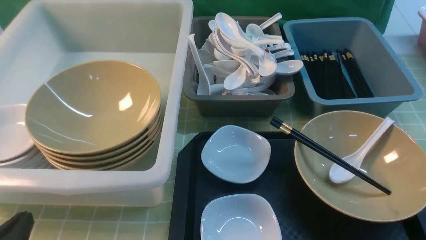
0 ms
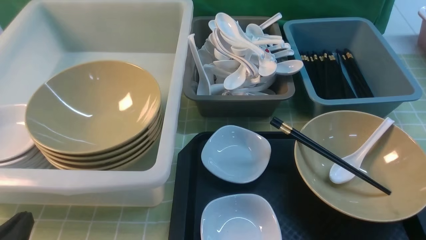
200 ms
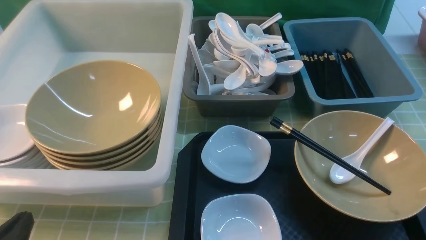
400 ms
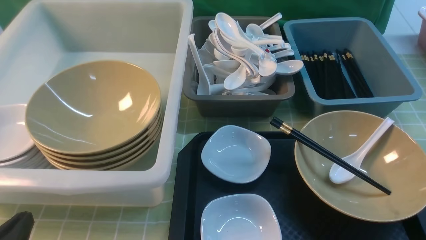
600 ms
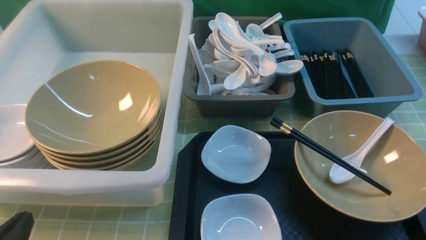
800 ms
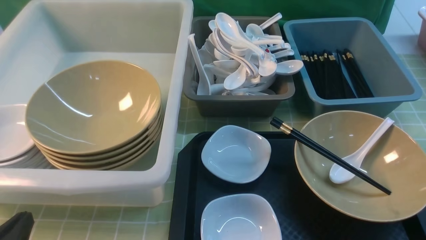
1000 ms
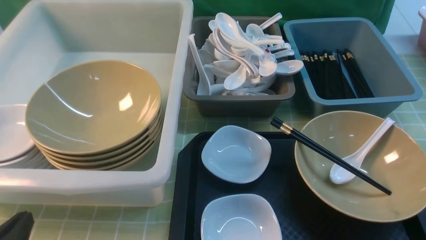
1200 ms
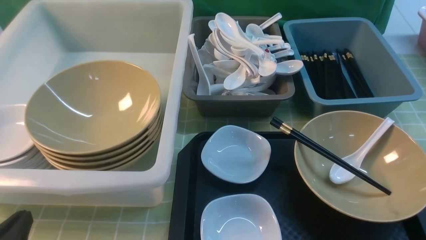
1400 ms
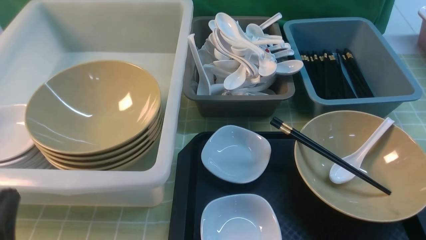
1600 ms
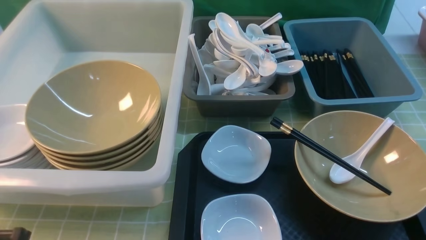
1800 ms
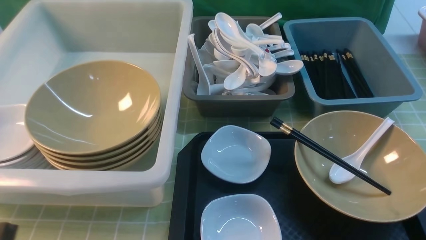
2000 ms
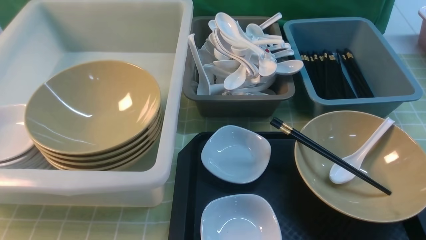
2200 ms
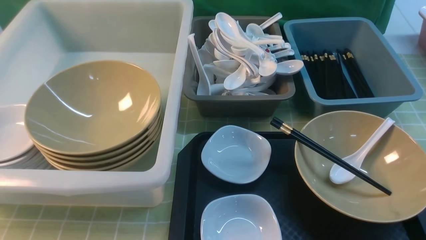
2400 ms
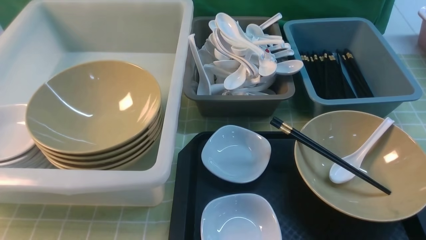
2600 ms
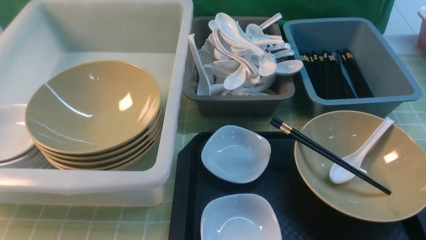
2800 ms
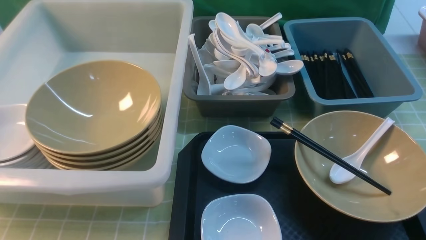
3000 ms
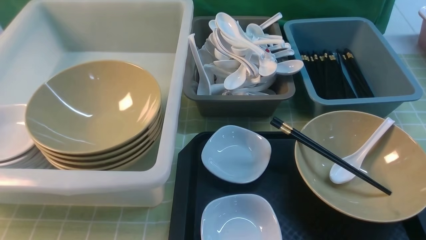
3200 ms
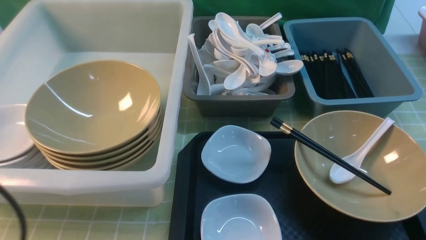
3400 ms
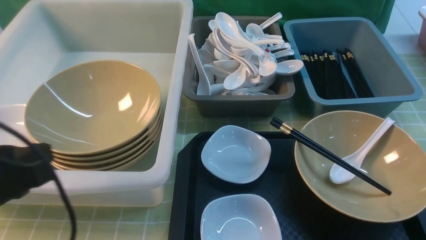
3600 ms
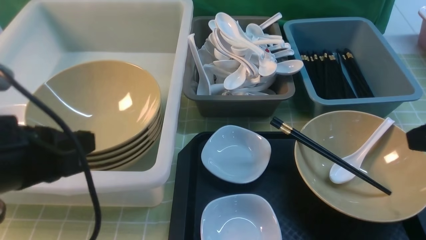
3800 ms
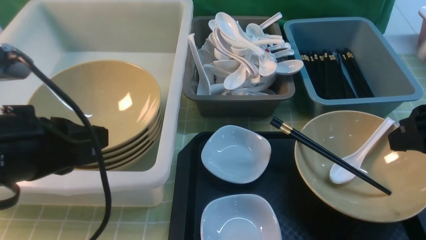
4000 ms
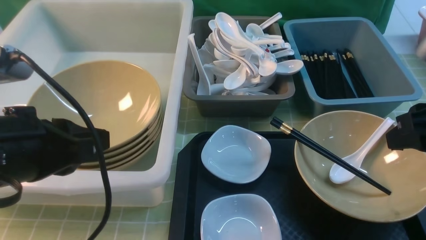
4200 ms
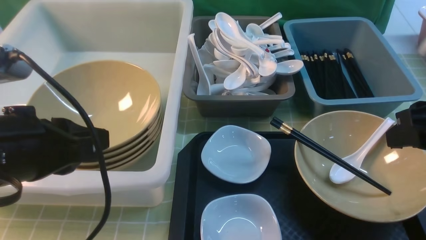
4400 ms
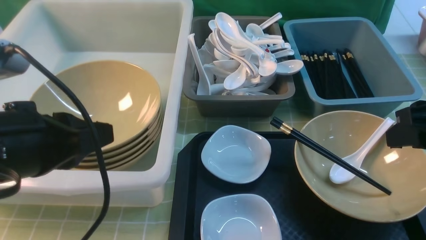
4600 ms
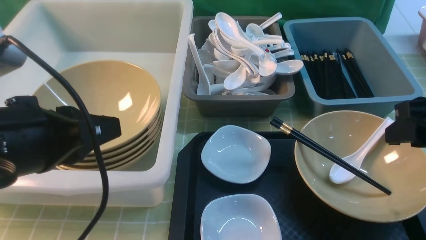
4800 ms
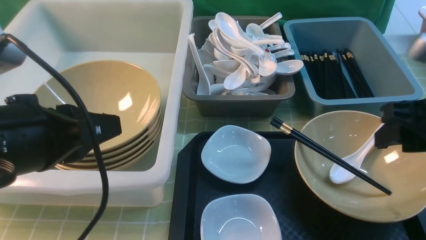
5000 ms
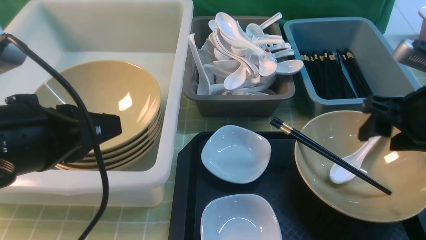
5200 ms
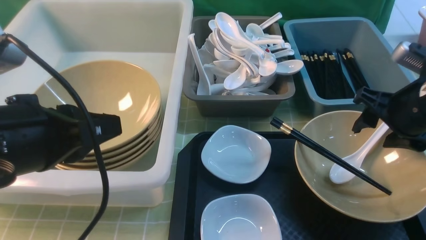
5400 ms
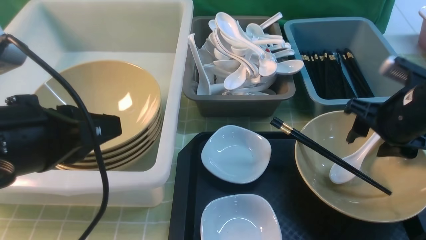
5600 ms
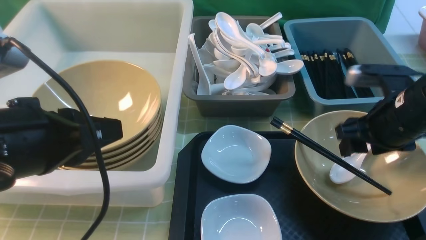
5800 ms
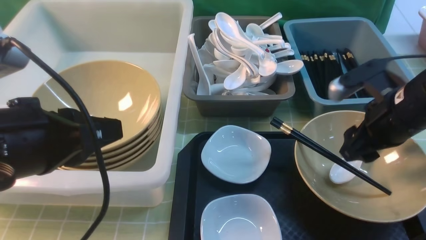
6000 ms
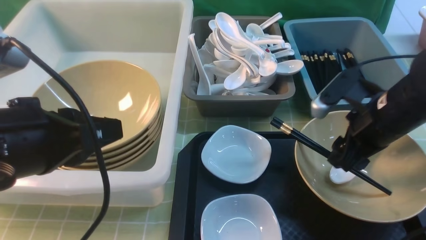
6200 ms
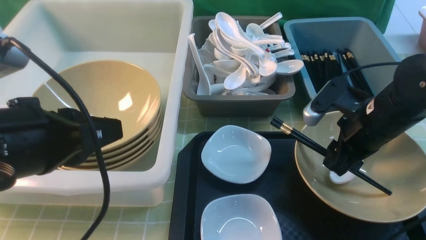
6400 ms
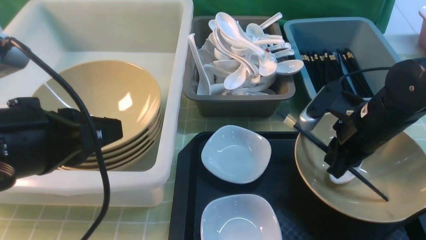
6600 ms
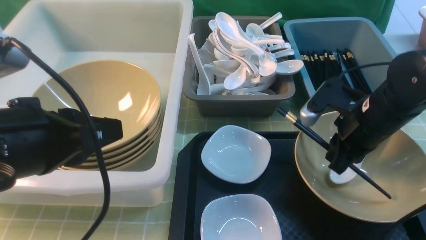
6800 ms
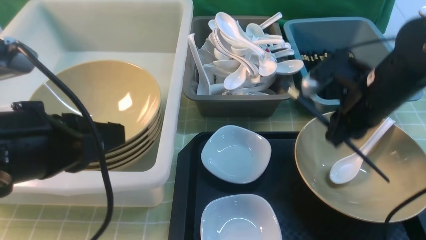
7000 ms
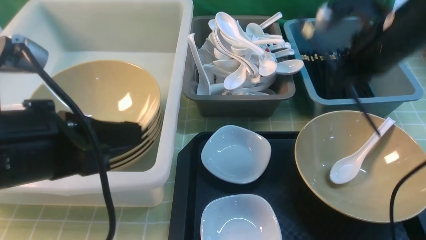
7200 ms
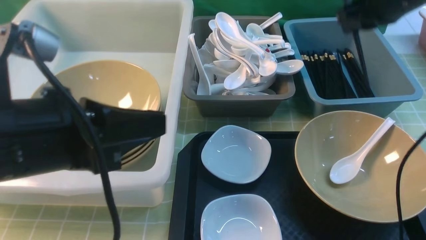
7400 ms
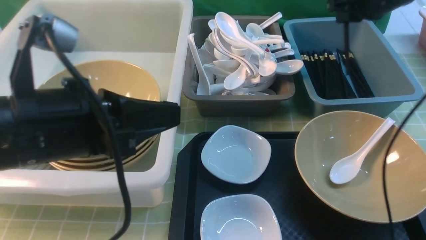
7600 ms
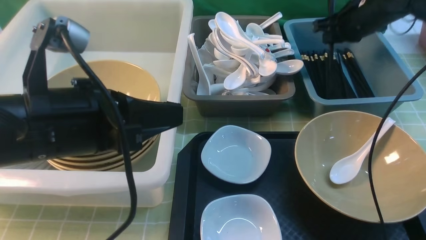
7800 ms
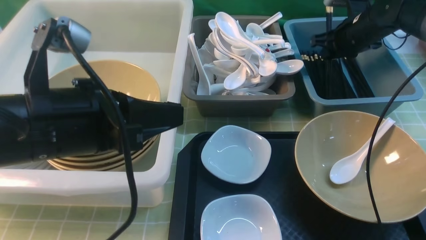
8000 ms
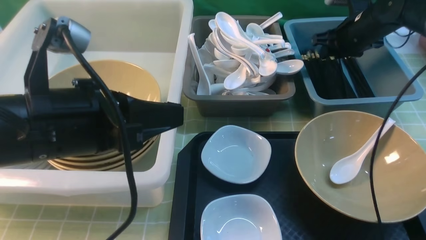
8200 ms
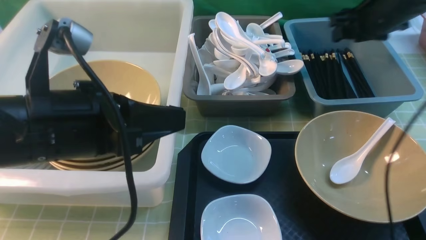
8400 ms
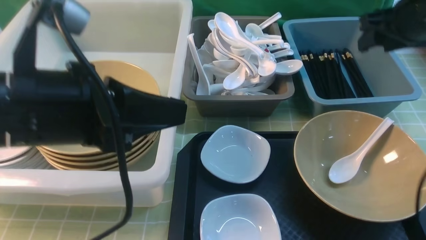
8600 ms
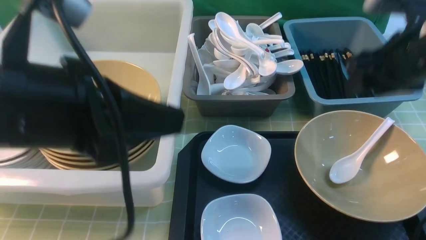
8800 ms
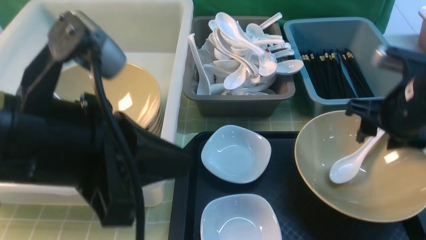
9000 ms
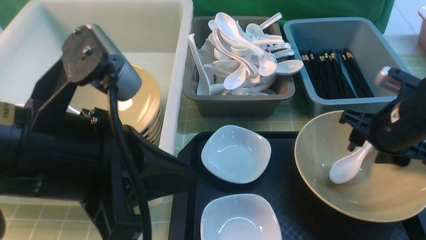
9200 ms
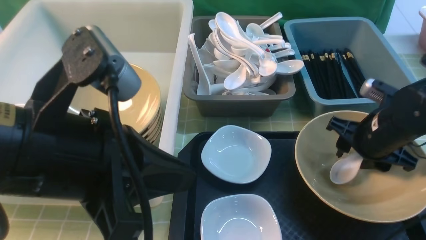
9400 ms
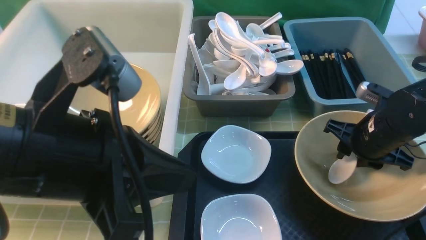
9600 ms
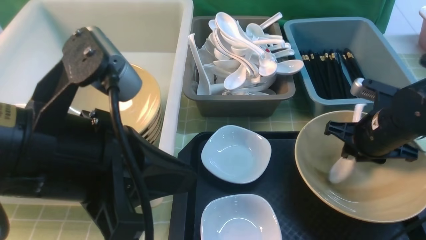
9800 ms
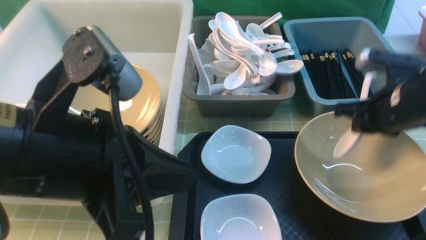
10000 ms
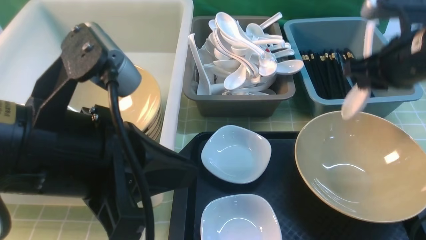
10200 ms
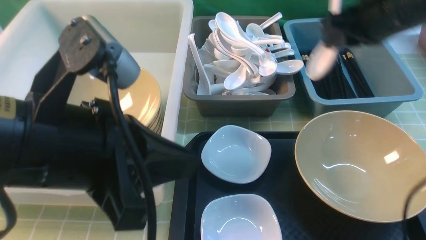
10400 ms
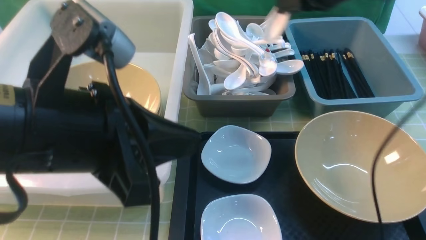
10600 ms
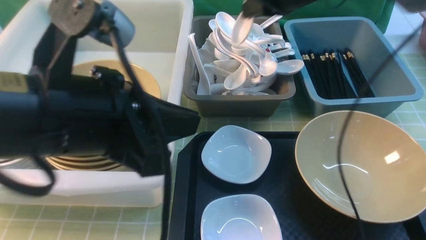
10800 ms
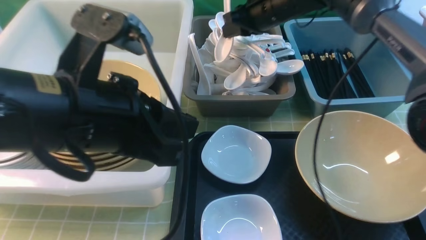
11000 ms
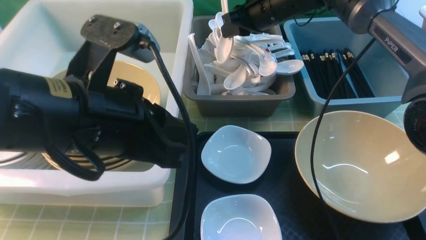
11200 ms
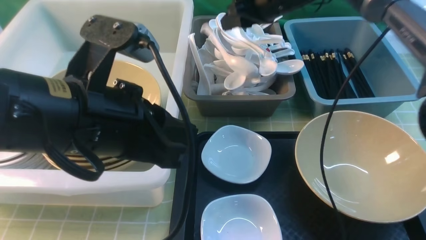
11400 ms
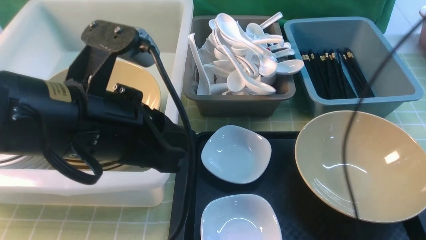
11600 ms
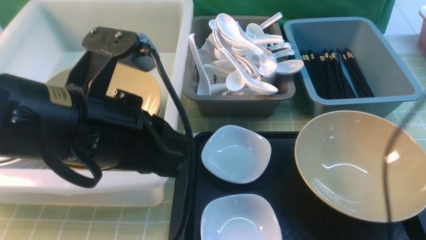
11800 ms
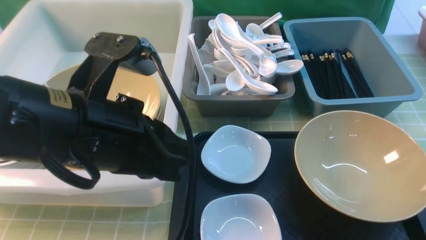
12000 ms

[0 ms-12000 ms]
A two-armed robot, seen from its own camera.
Task of the whole recording: on green table put chopsticks spoon bowls plates into blue grey white boxes.
Step, 0 ms to 7000 ms: use the right arm to grab the chopsticks.
Step, 7400 ms to 8600 ms: use the right arm to put the chopsticks into the small storage box on the right.
Step, 8800 ms to 9800 ms: use the right arm to grab the soup spoon in the middle.
Step, 10000 ms to 11400 ms: use the right arm to put the soup spoon into the small storage box in the middle.
0 ms to 1600 ms: The grippers move only a little.
1600 ms to 3000 ms: The left gripper is displaced upward by about 15 cm.
3000 ms to 4400 ms: The left gripper shifts roughly 10 cm to the right and forward; the right gripper moves forward and downward, about 15 cm.
4400 ms to 6000 ms: The right gripper heads downward and forward, covering roughly 10 cm.
6000 ms to 7600 ms: The right gripper shifts approximately 20 cm forward and upward, and closes.
7600 ms to 9000 ms: The right gripper shifts some 15 cm backward, and opens its fingers.
9000 ms to 10400 ms: The right gripper goes about 15 cm upward and forward, and closes its fingers.
10400 ms to 12000 ms: The right gripper heads upward and backward, covering some 15 cm, and opens.

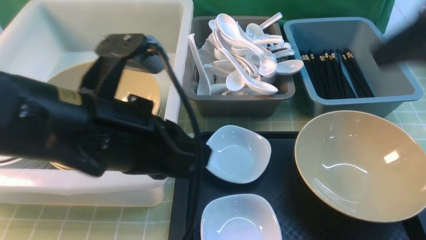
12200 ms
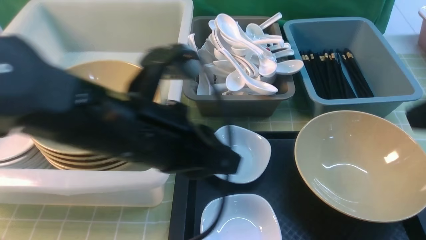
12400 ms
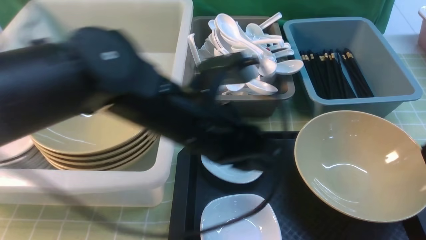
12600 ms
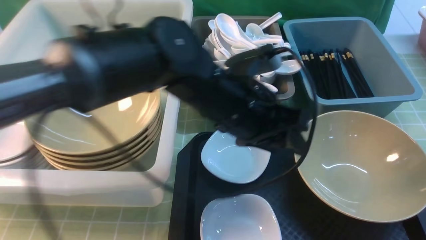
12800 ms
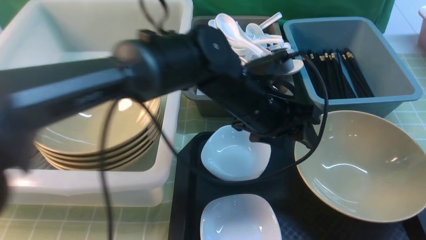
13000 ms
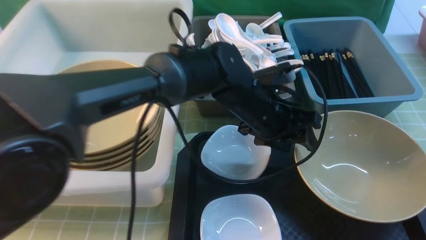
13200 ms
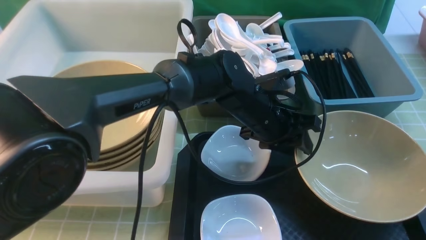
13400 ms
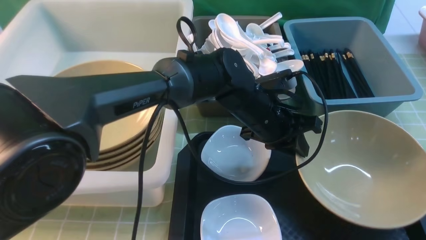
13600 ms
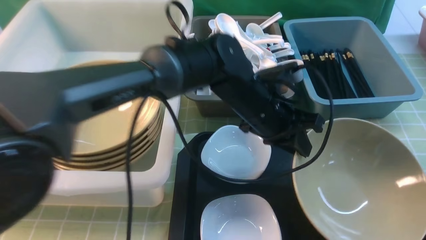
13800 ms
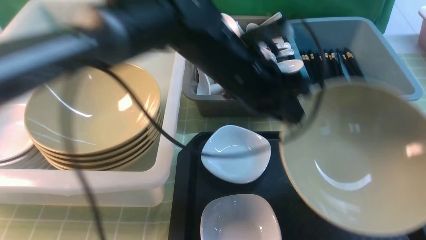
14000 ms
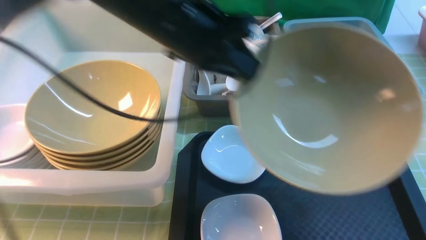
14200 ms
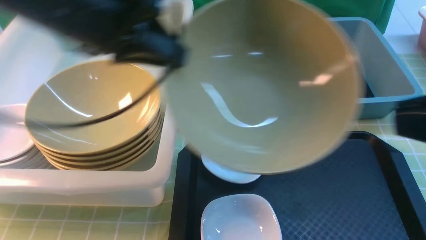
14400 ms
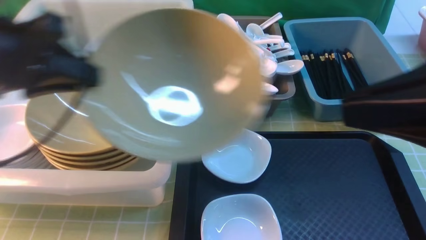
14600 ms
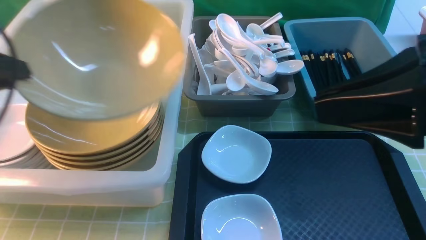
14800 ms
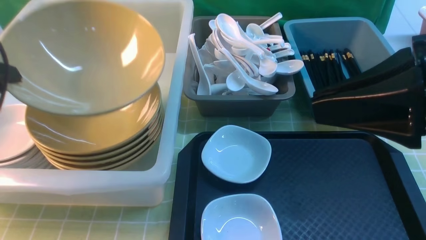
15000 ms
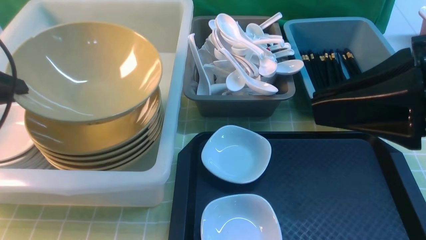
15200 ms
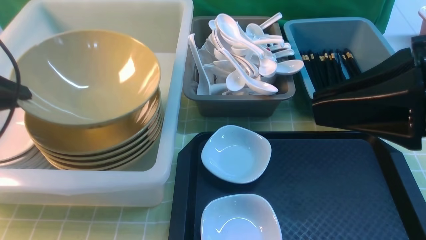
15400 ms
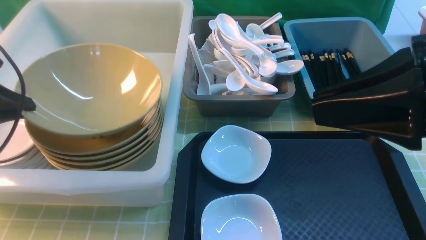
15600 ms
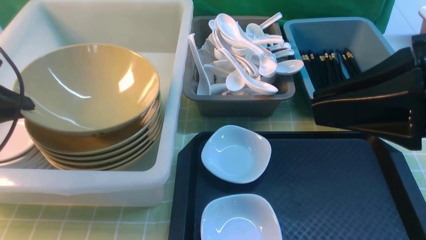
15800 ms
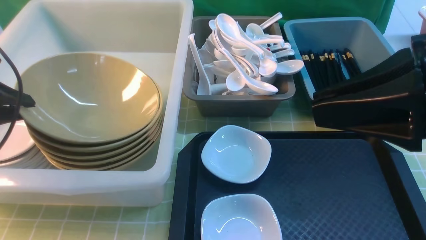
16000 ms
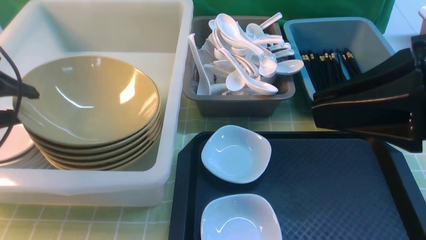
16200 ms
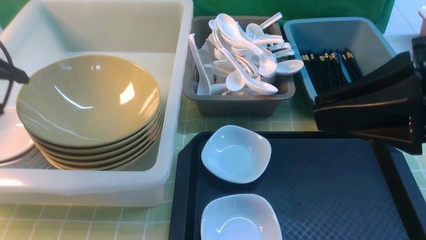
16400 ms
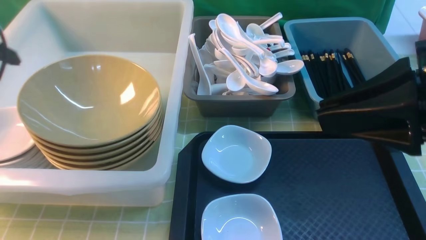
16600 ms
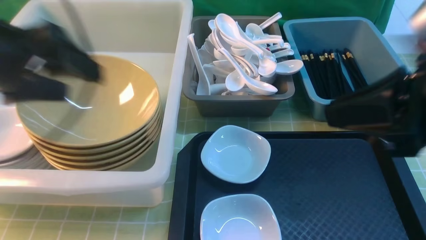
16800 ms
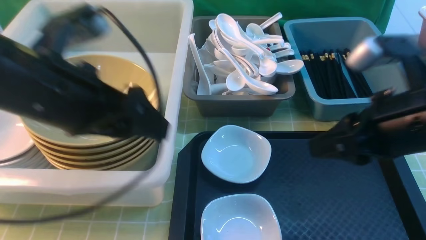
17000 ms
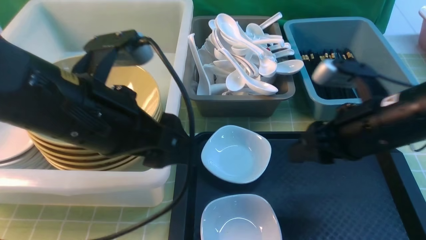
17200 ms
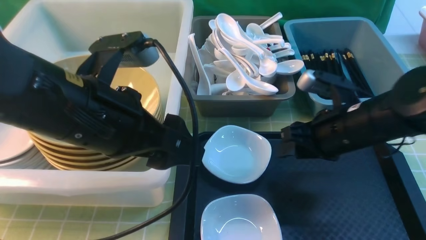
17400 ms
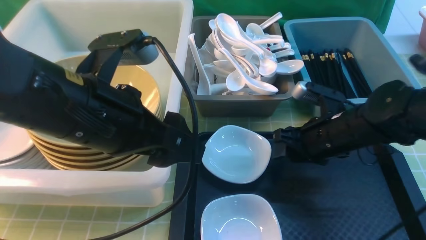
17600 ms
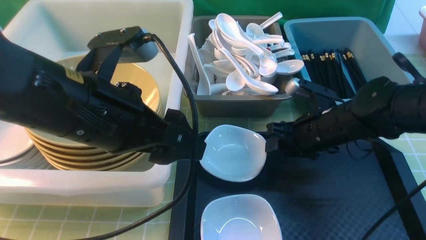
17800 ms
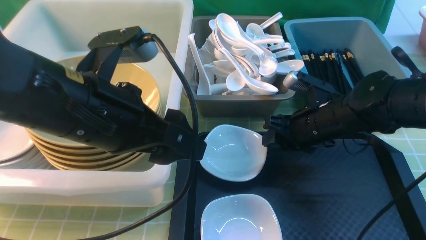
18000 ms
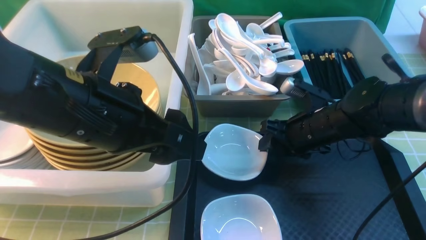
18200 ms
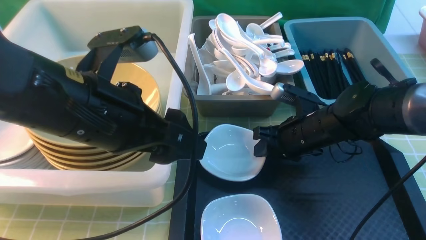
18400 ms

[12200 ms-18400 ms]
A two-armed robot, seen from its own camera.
Task of the whole recording: on green table put chopsticks spoon bowls plates into blue grey white boxes.
Step, 12200 ms to 14000 ms: use the left arm to grab the yellow noodle bowl on the left.
Step, 14400 ms to 16600 ms: use the left arm to put the noodle bowl into the large storage box on the left.
12200 ms to 13800 ms: The right gripper is displaced backward by approximately 15 cm. The left gripper is displaced forward, to the right and downward by roughly 20 cm, and opens and closes again.
13800 ms to 15400 ms: The left gripper moves to the left, about 40 cm. The right gripper goes about 10 cm forward and to the left.
15400 ms to 16800 ms: The left gripper moves to the right and upward, some 15 cm, and opens up. The right gripper changes place by some 5 cm.
16800 ms to 18400 ms: The right gripper moves downward and forward, roughly 25 cm, while the left gripper moves to the right, approximately 10 cm.
